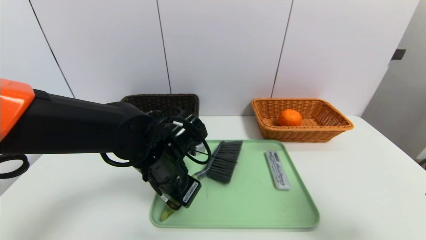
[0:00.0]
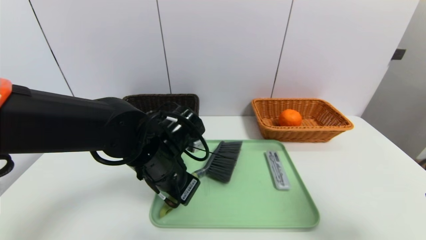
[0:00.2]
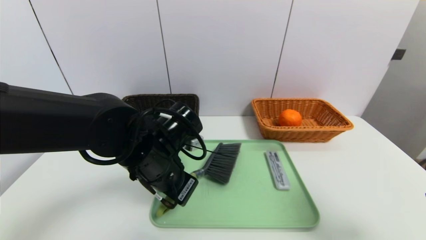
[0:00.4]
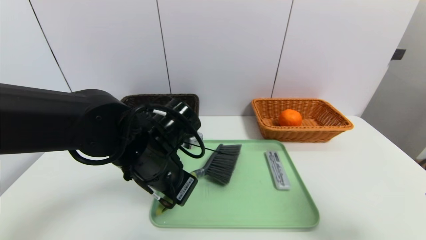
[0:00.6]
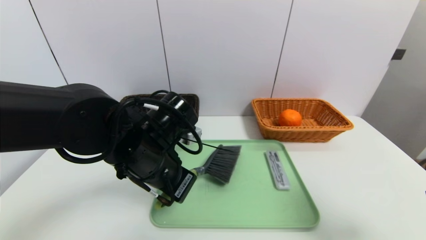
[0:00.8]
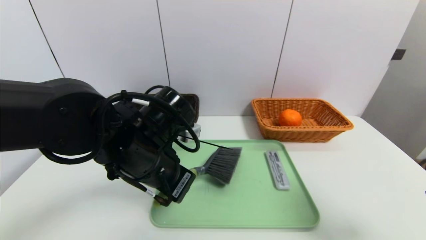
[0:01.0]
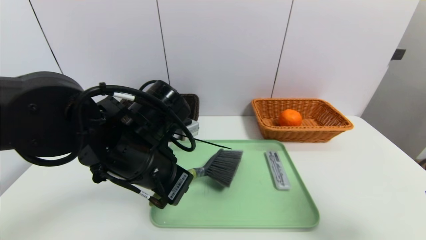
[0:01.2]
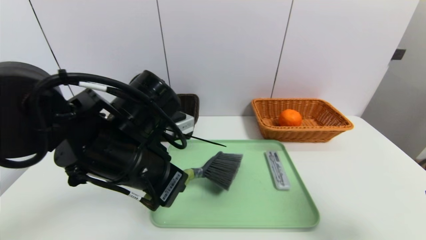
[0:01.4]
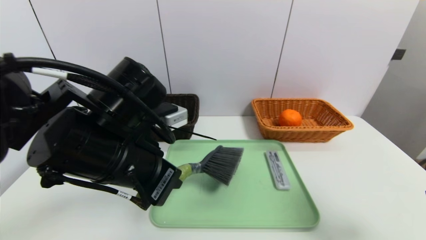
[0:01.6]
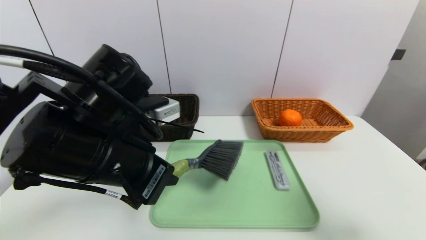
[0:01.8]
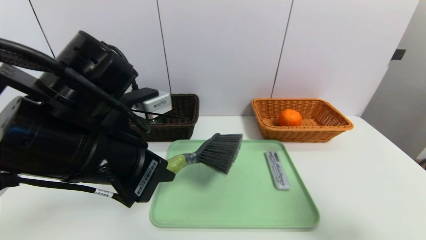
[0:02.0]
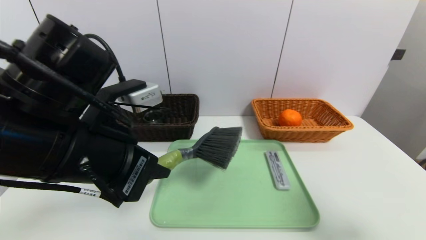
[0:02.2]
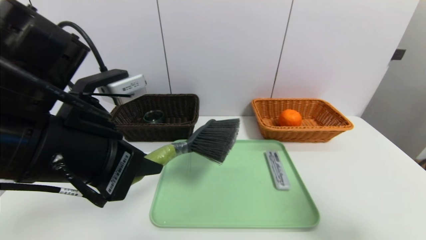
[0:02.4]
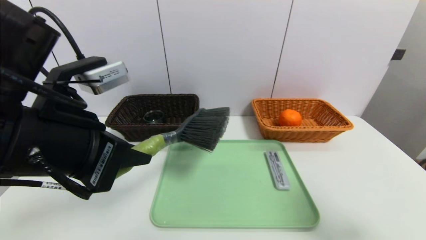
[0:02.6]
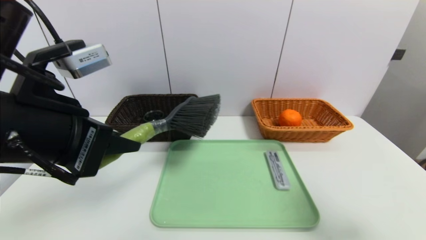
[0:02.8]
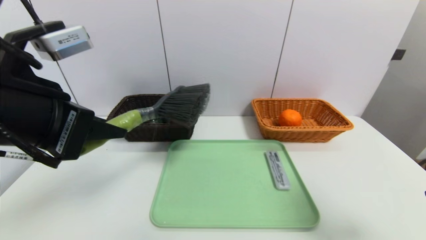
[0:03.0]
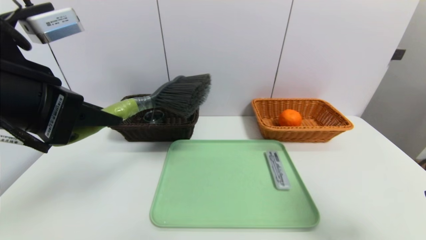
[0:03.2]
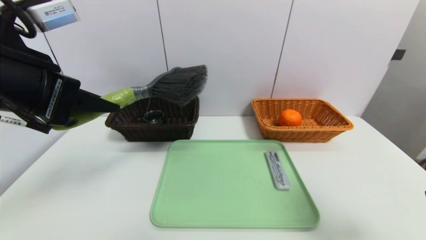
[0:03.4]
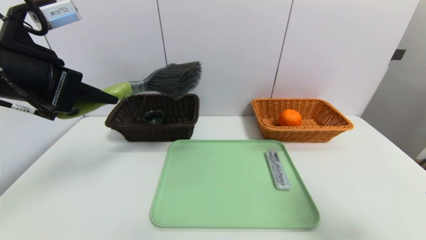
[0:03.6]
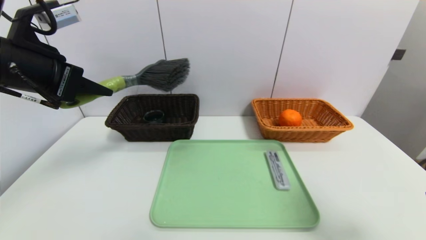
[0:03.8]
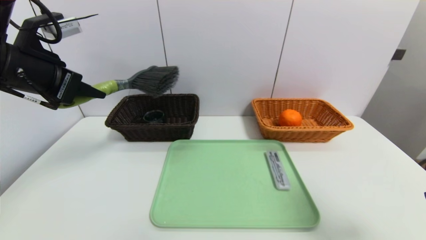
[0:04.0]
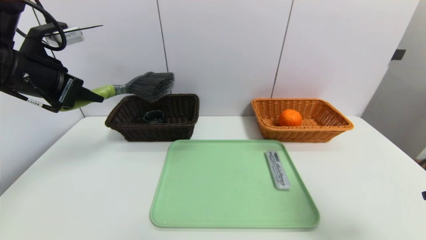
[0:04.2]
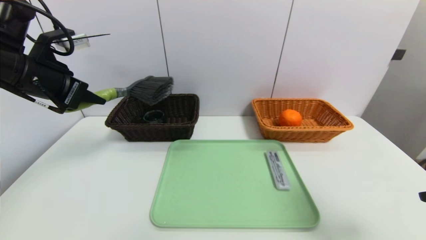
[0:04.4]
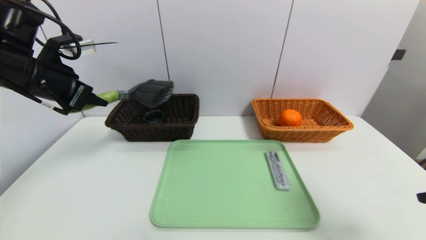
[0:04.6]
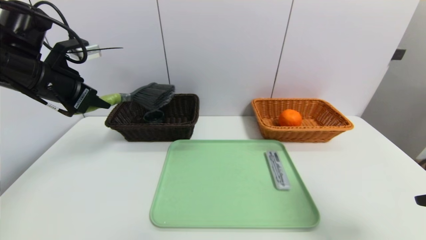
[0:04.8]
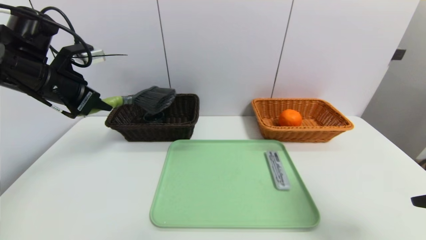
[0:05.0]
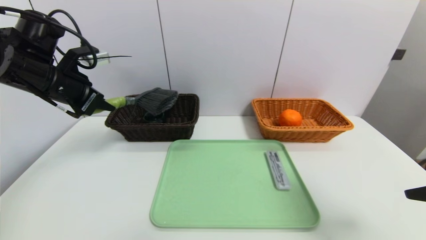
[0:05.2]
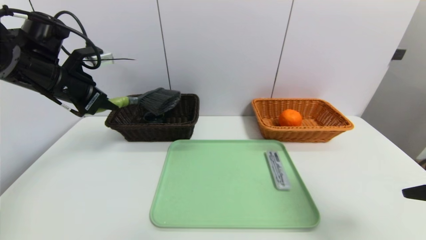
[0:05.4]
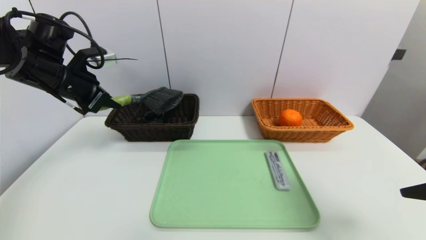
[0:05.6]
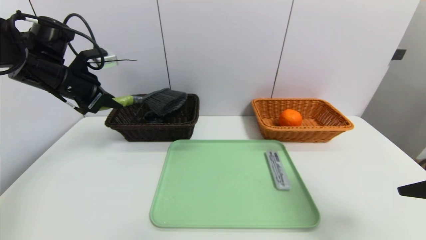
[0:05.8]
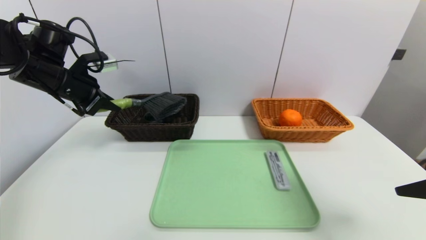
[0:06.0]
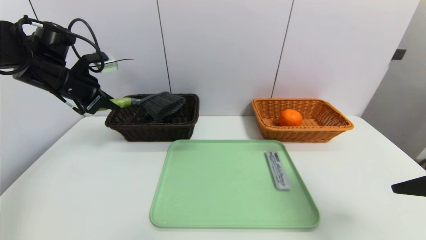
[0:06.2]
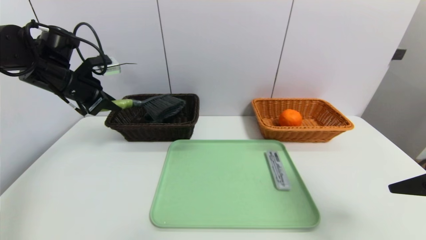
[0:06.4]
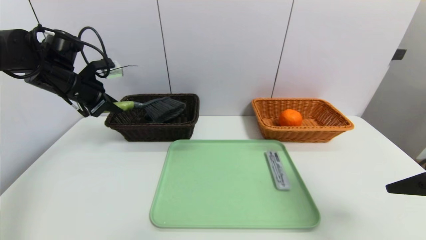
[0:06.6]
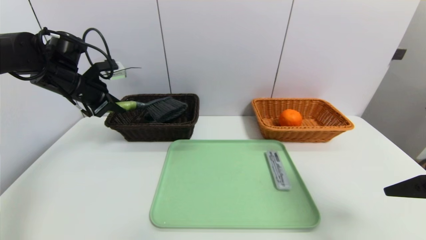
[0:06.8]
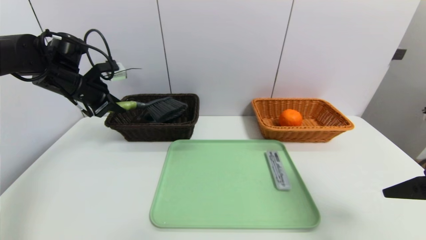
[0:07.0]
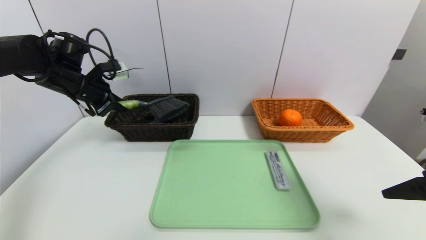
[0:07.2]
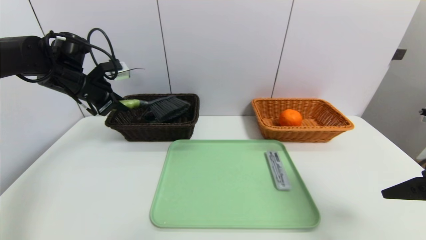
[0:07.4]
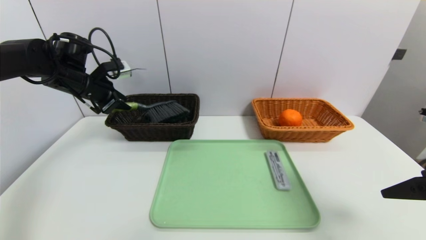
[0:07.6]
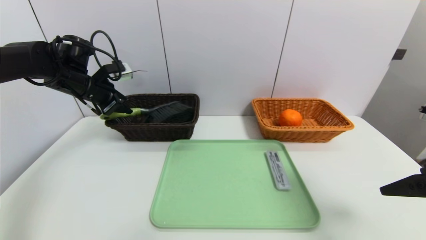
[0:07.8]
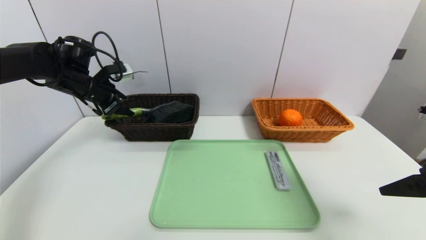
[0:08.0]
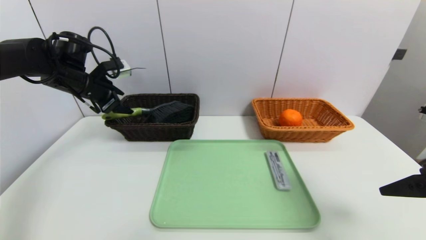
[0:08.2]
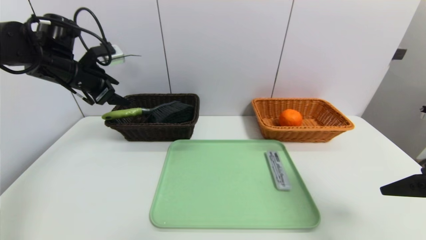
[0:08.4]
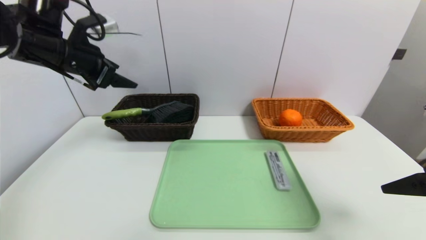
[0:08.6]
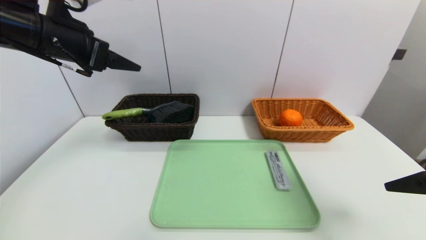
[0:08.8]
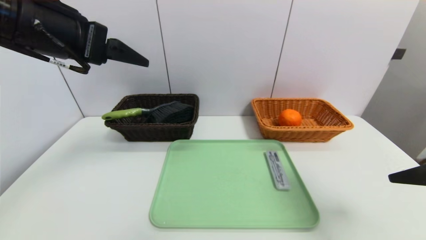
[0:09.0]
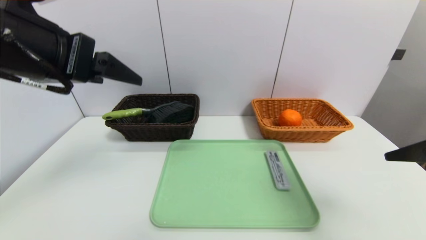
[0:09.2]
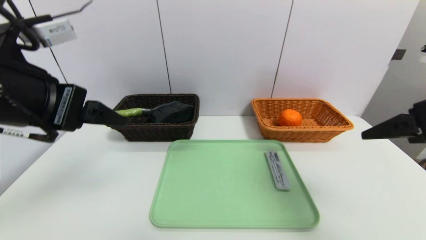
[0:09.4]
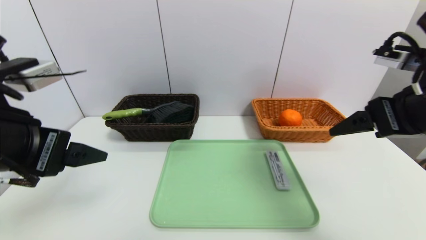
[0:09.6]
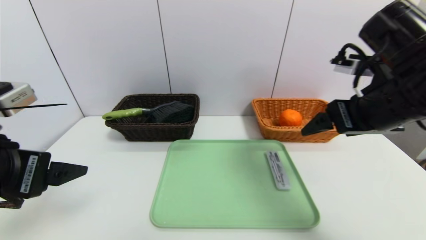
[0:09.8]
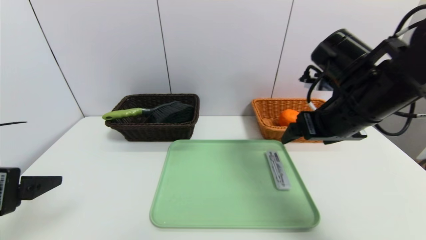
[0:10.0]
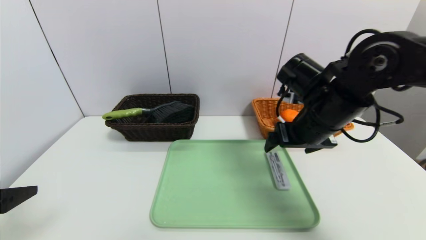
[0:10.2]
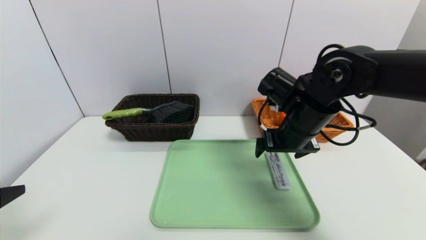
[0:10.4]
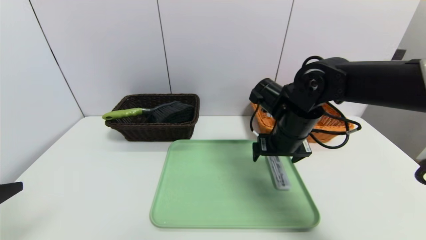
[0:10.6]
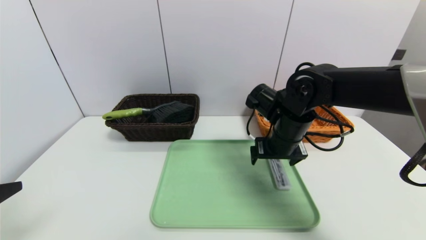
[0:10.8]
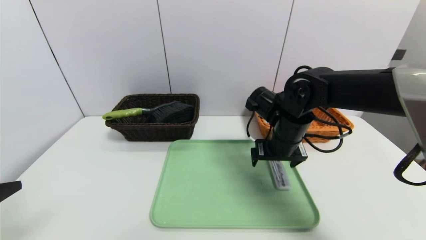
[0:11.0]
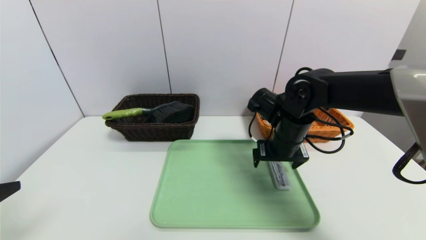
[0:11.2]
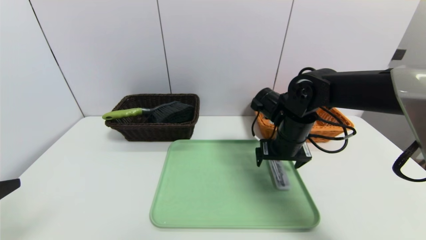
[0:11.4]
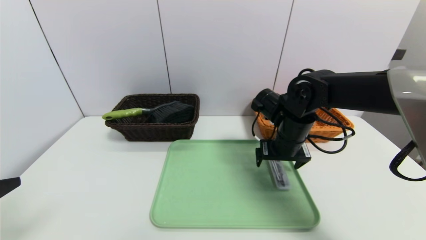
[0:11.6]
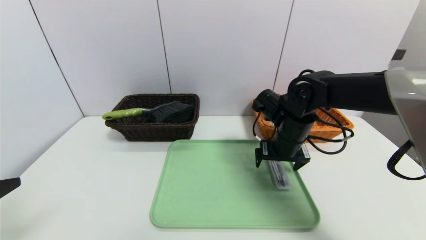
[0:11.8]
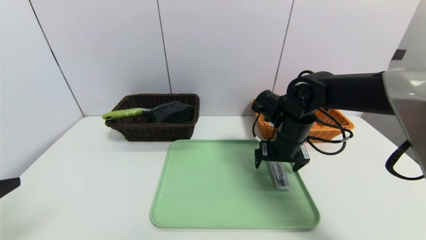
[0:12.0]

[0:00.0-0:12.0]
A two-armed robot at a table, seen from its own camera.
Task of the whole recording: place the food in the right basket with the right gripper, and place the non food items in the left basket with the left gripper.
Step, 0:00.0 to 0:08.2: Grasp the brush and put it in the left basket.
0:00.0 to 0:01.6: The left gripper moves upward and backward, some 10 cm.
0:01.6 to 0:03.0: The left gripper heads upward and to the left, covering approximately 10 cm.
0:03.0 to 0:04.4: The left gripper goes about 15 cm forward and to the left.
0:04.4 to 0:06.0: The left gripper shifts approximately 5 cm forward.
0:06.0 to 0:07.6: The left gripper travels forward by some 5 cm.
0:07.6 to 0:09.0: The left gripper shifts about 25 cm backward, upward and to the right, and opens its fingers.
0:09.0 to 0:10.4: The left gripper shifts approximately 20 cm backward, downward and to the left. Meanwhile the right gripper goes about 25 cm forward, to the left and downward.
0:10.4 to 0:12.0: The right gripper shifts by some 5 cm.

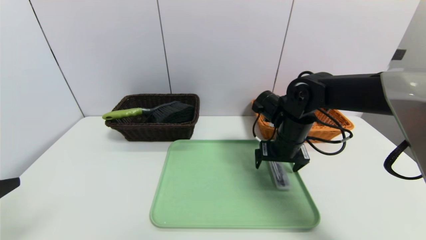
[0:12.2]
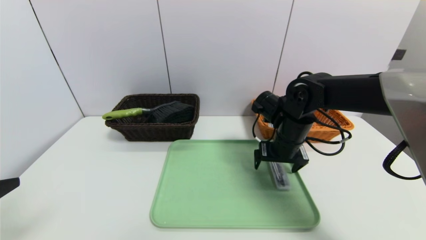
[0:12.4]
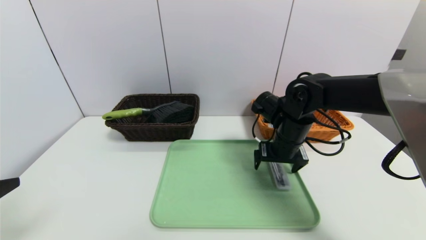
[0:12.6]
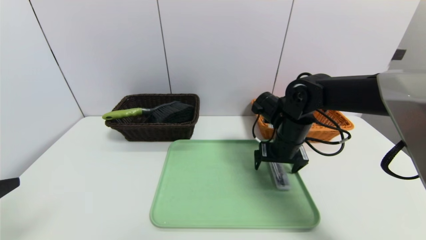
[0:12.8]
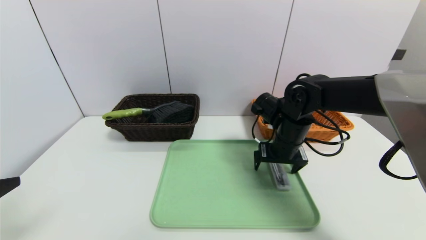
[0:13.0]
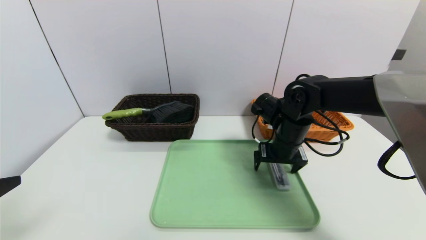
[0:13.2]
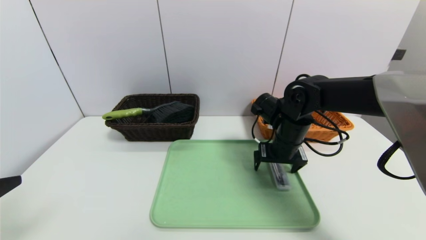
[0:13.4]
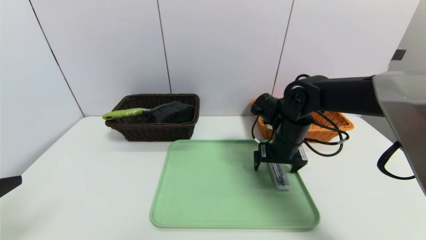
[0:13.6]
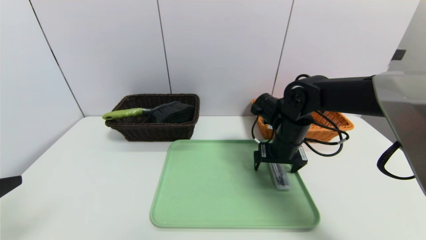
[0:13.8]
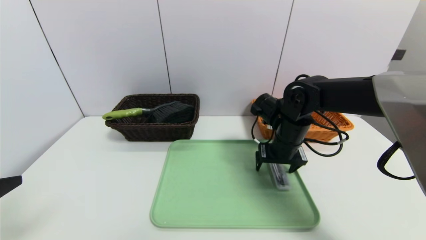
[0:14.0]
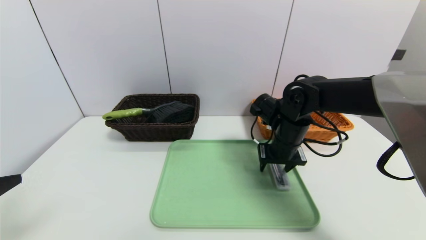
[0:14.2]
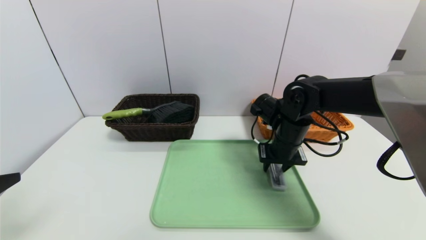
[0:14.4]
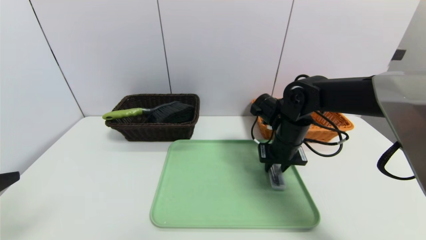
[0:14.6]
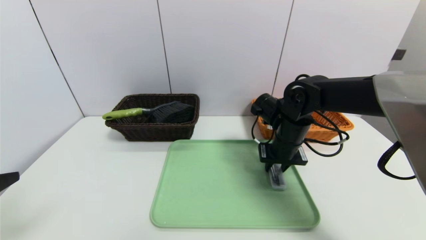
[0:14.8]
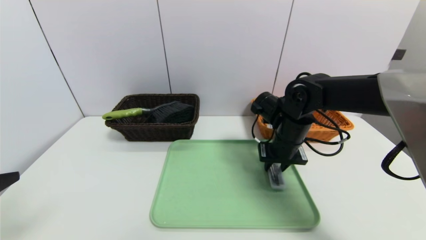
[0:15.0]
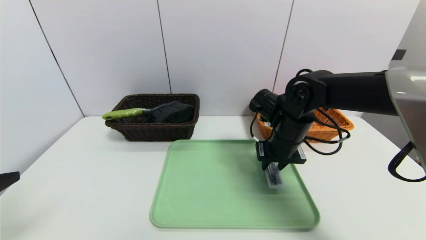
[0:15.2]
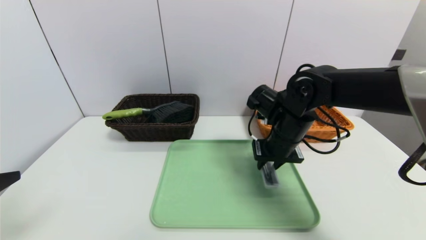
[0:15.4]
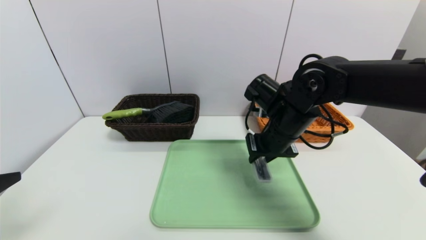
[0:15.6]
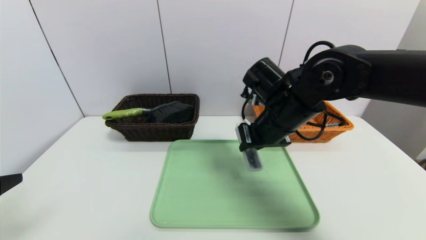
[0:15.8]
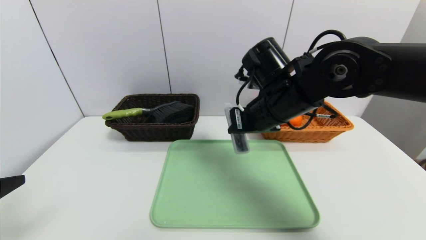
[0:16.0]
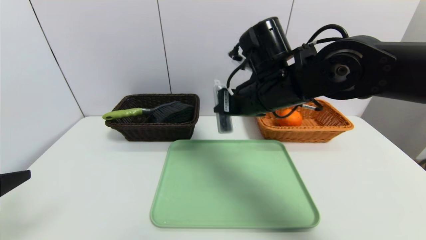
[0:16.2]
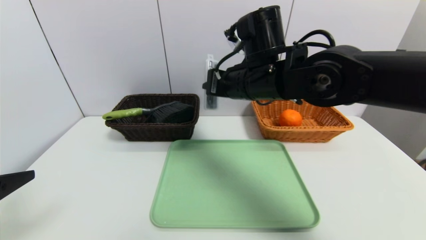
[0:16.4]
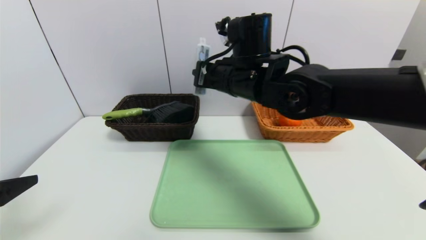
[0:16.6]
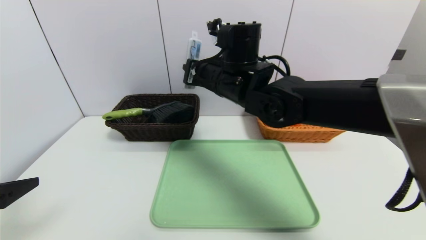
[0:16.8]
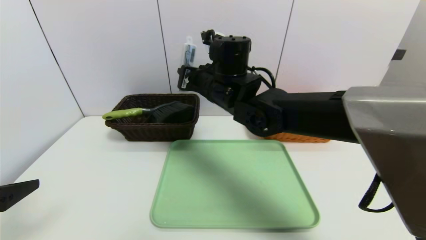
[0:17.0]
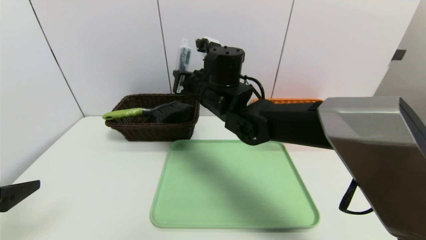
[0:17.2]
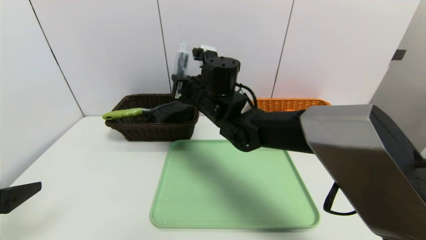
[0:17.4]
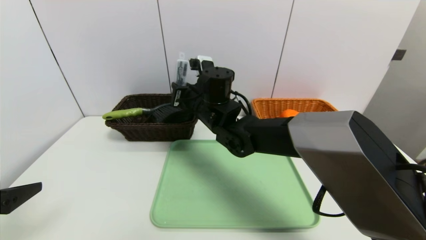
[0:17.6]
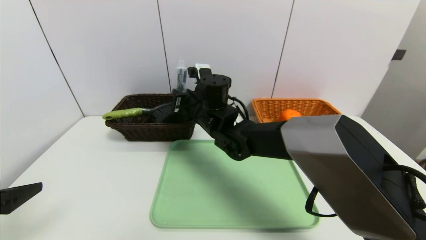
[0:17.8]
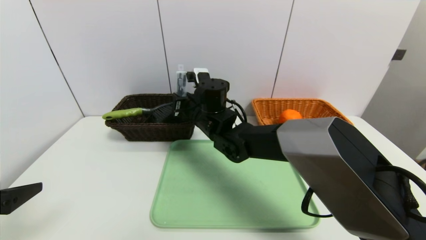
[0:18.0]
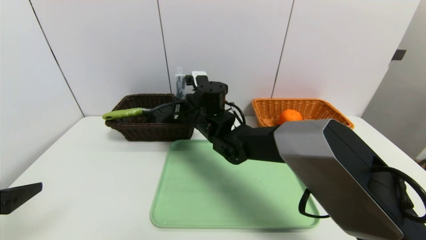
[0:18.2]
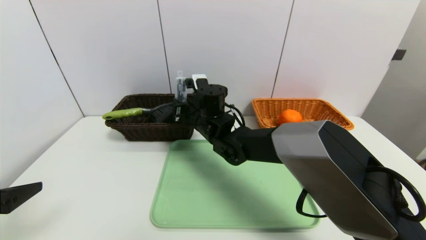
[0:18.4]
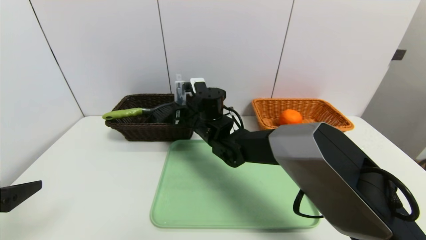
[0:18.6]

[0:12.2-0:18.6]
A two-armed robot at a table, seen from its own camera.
Task of the whole recording: place the food in the right basket with the right gripper, and place the non food items in the left basket with the left gripper.
0:12.2 to 0:13.8: Both grippers stay put.
0:13.8 to 0:15.4: The right gripper closes up.
0:15.4 to 0:17.0: The right gripper heads to the left and upward, covering approximately 15 cm.
0:17.0 to 0:18.6: The right gripper shifts approximately 10 cm downward.
